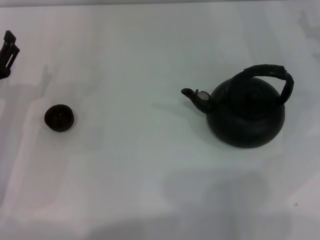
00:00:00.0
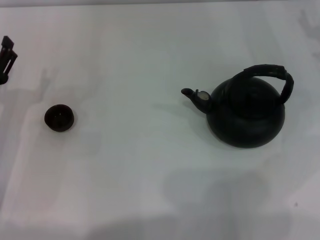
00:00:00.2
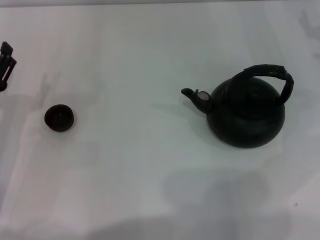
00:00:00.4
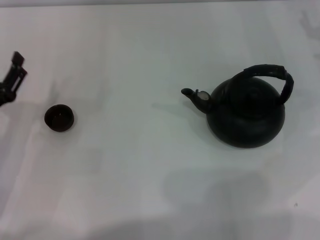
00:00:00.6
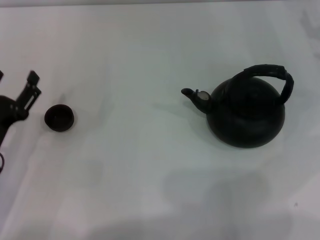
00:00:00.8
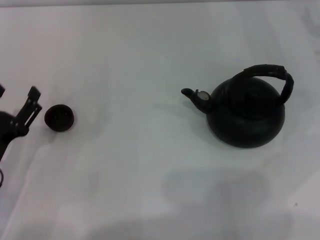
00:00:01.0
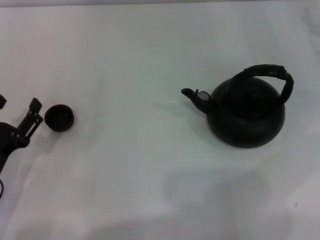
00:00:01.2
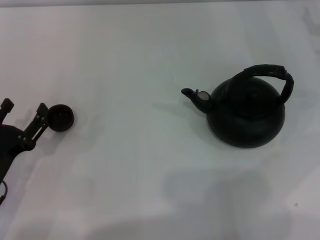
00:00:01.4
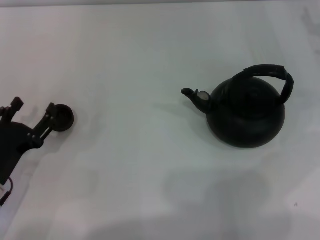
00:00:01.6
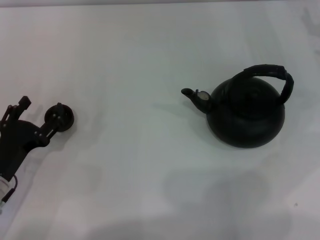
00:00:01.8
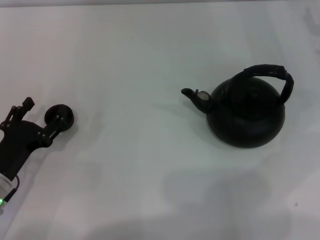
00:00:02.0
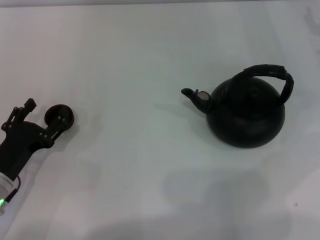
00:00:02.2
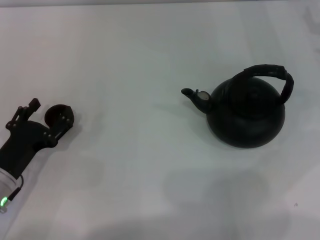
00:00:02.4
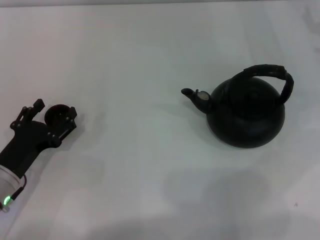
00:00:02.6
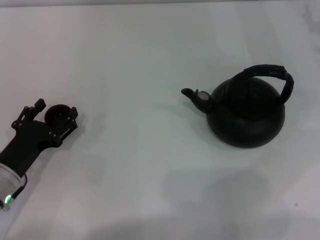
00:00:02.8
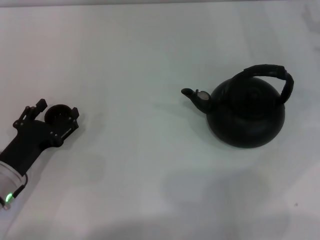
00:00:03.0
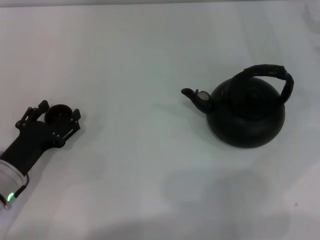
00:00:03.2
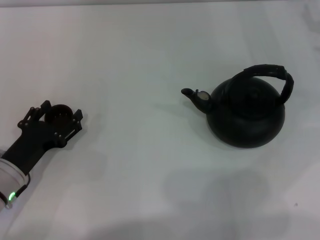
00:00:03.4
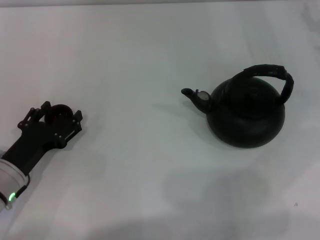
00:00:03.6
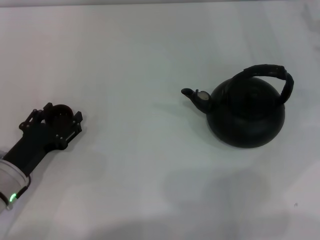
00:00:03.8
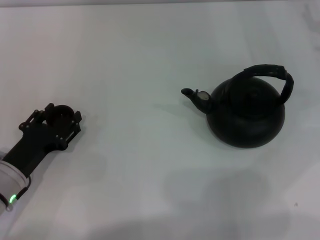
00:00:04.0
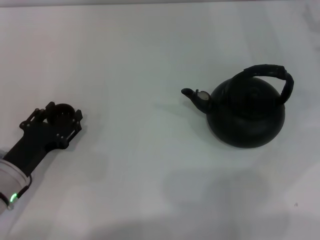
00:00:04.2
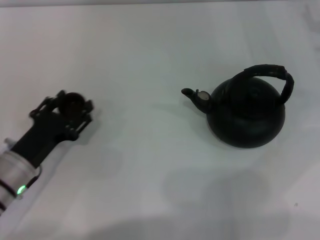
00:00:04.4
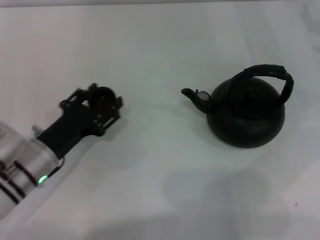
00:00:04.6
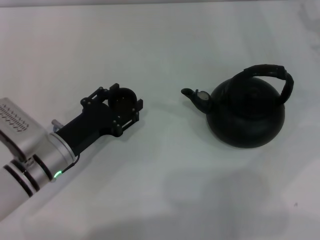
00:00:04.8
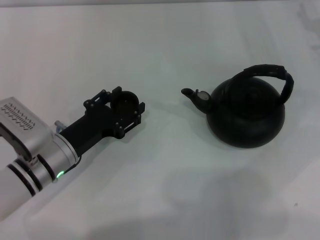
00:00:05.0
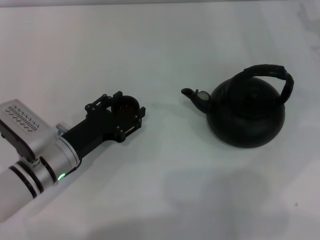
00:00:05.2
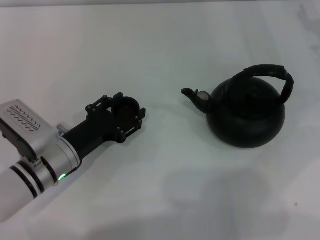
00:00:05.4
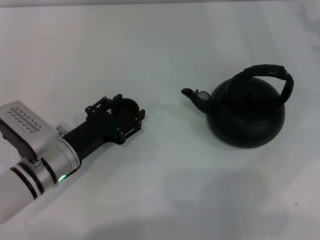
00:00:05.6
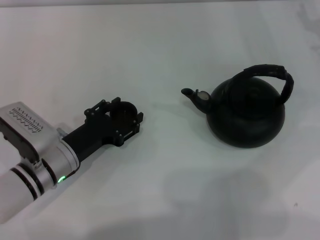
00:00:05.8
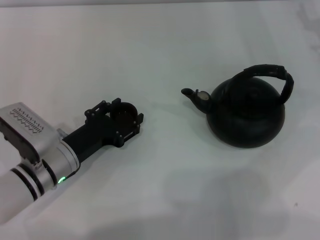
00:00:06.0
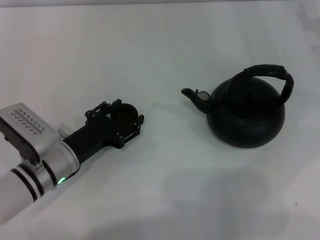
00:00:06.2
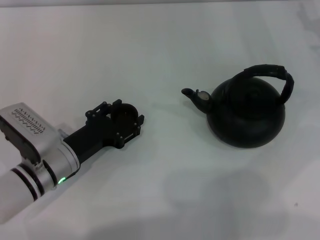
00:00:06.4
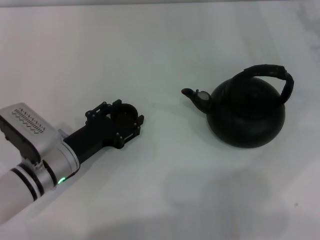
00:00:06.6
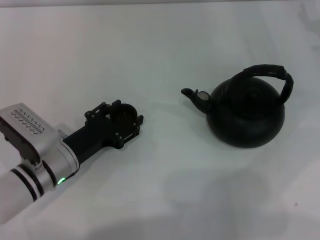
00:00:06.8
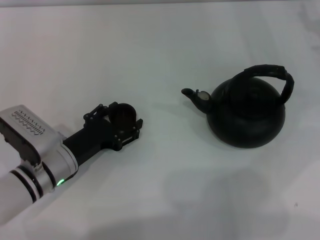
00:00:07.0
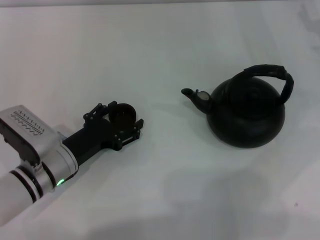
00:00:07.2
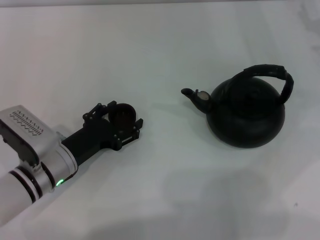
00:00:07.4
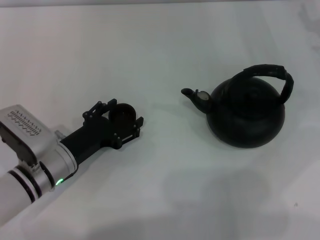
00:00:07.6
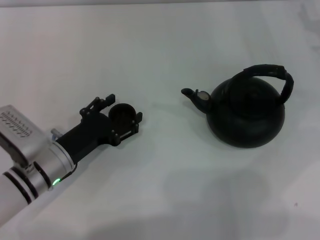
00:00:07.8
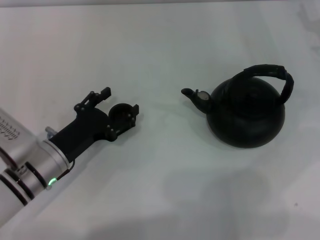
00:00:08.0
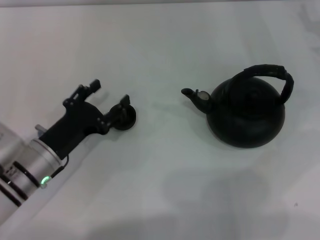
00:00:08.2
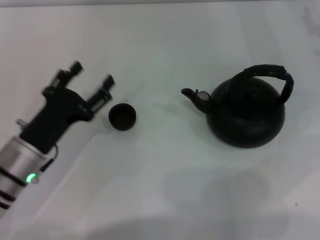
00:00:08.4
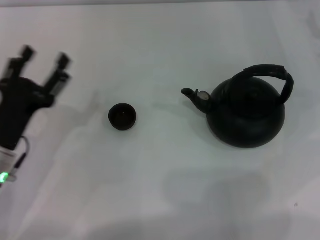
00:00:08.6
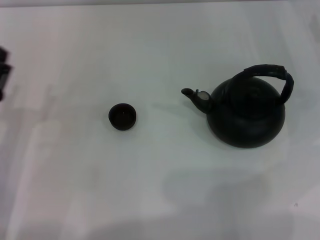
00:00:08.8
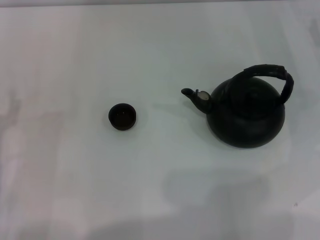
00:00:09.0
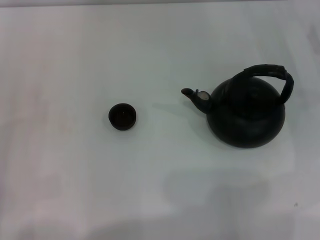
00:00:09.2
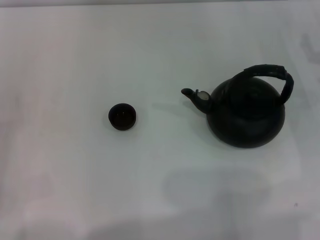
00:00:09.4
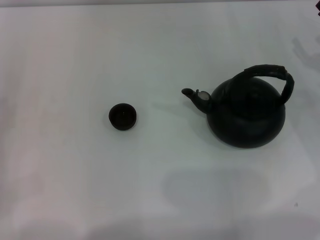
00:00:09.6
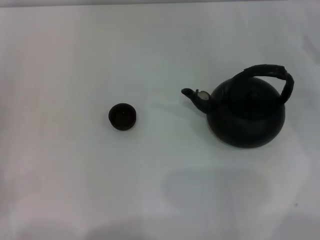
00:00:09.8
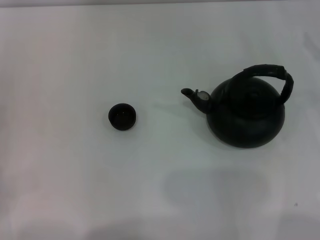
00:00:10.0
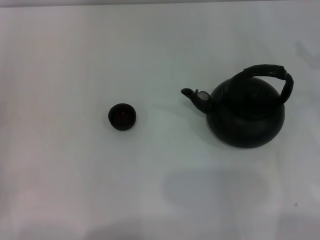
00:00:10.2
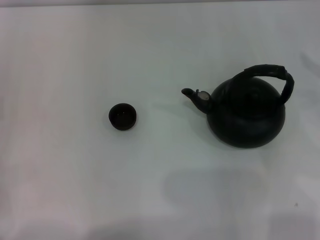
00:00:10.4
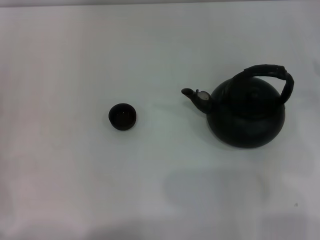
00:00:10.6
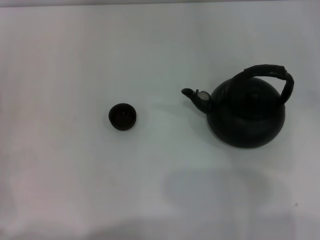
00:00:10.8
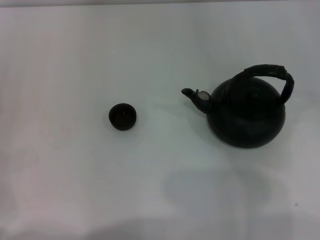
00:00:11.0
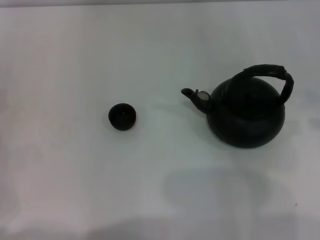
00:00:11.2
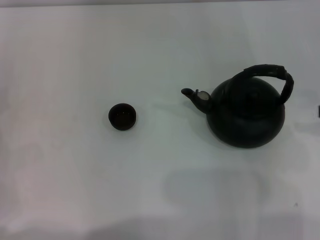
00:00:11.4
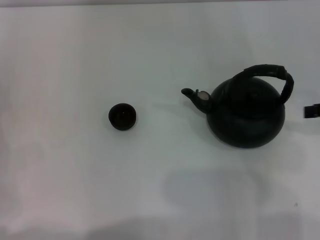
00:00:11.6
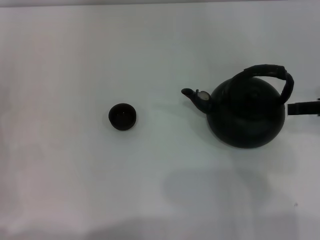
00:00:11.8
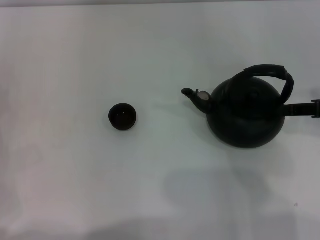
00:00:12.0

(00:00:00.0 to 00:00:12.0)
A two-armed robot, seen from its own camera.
Task of the whole recording: Grasp the handle of the teapot with one hand and pour tea into the teacup.
Step, 00:00:00.0 - 00:00:04.2: Pick up the teacup with the left gripper.
Step, 00:00:04.6 - 00:00:08.2: Place the teacup in the center of view with the left gripper.
00:00:00.0 - 00:00:01.6: The left gripper shifts about 10 cm backward.
00:00:01.6 - 00:00:03.0: The grippers stay close to where they were, moving slightly.
00:00:03.0 - 00:00:04.4: The left gripper closes up.
00:00:04.4 - 00:00:06.0: The left gripper is displaced to the right by some 5 cm.
00:00:06.0 - 00:00:07.6: The left gripper opens up.
00:00:07.6 - 00:00:09.0: The left gripper heads to the left, covering about 10 cm.
00:00:10.4 - 00:00:12.0: The right gripper heads to the left, covering approximately 5 cm, and travels upward and back again, some 5 cm each way.

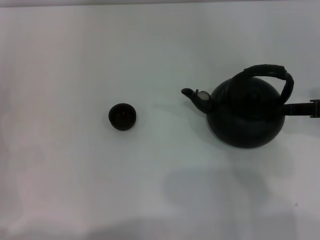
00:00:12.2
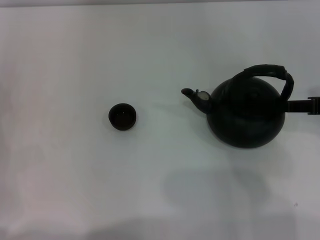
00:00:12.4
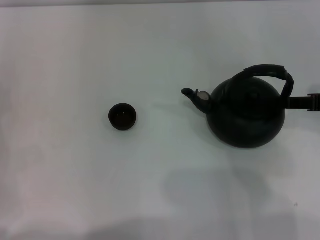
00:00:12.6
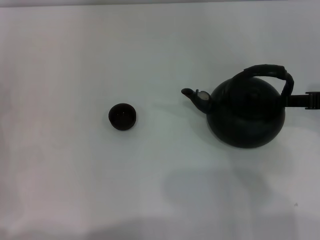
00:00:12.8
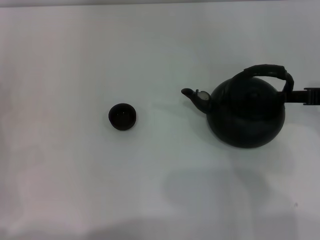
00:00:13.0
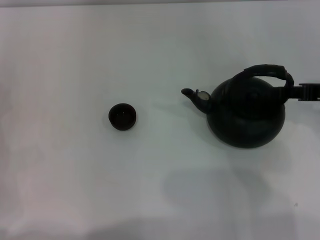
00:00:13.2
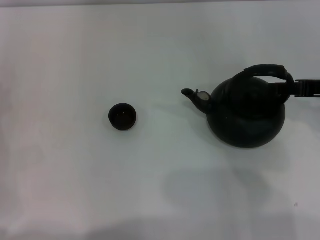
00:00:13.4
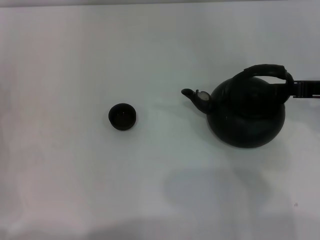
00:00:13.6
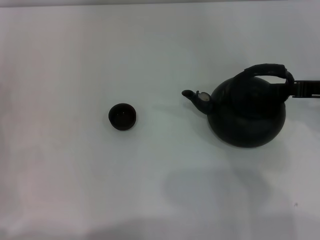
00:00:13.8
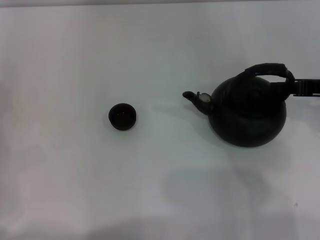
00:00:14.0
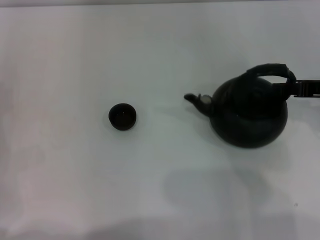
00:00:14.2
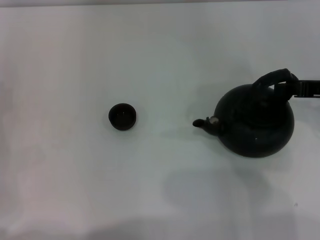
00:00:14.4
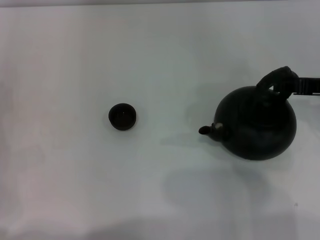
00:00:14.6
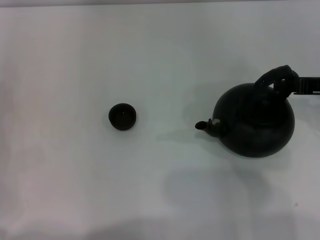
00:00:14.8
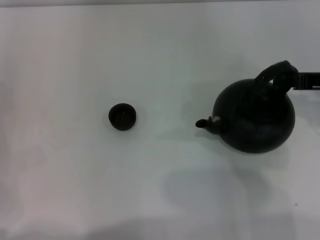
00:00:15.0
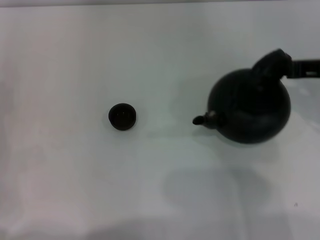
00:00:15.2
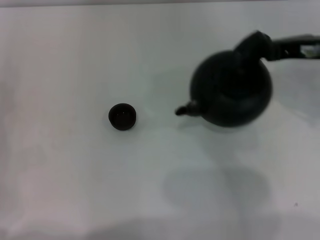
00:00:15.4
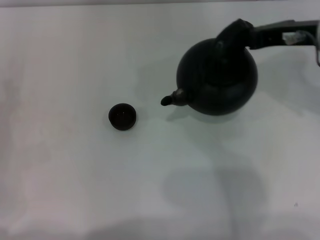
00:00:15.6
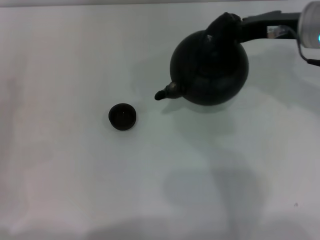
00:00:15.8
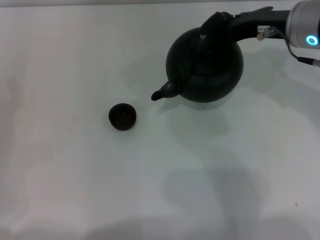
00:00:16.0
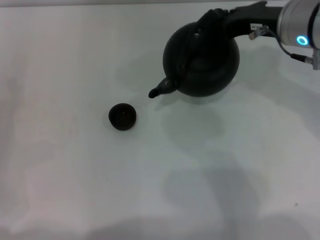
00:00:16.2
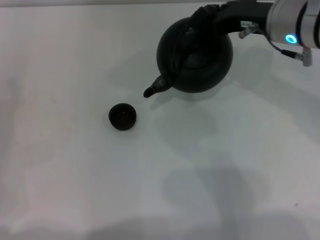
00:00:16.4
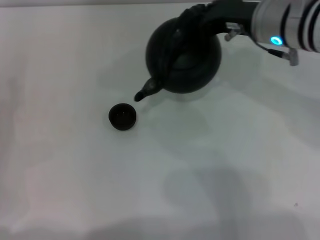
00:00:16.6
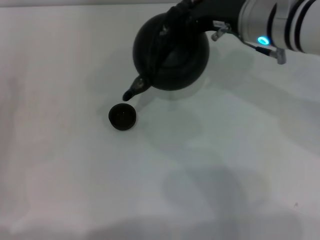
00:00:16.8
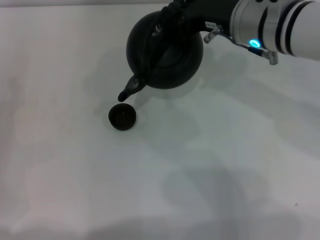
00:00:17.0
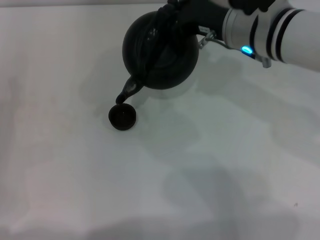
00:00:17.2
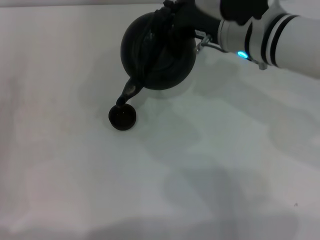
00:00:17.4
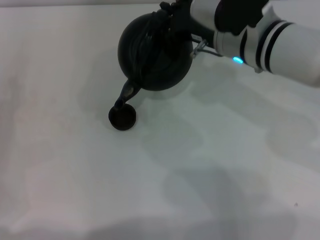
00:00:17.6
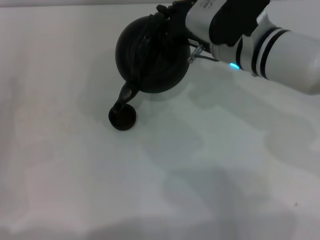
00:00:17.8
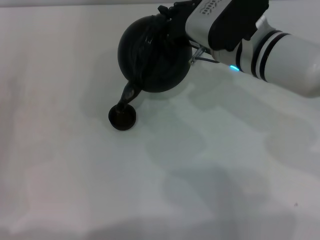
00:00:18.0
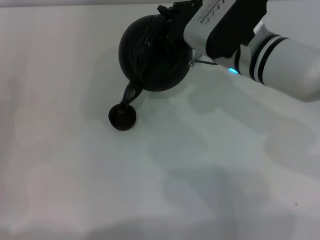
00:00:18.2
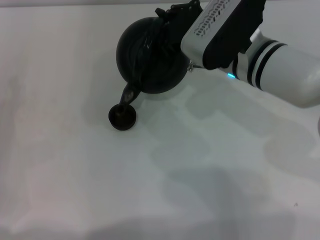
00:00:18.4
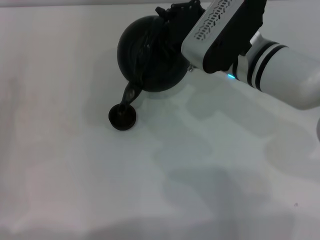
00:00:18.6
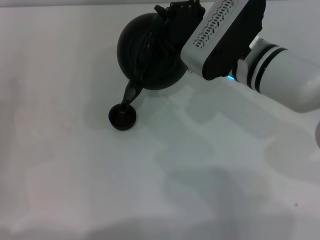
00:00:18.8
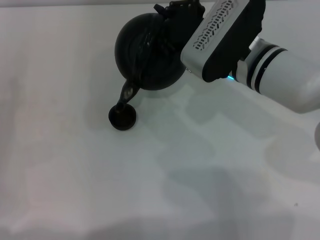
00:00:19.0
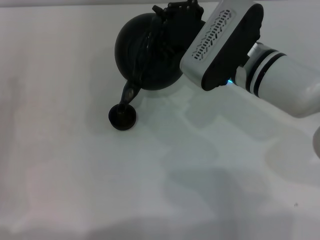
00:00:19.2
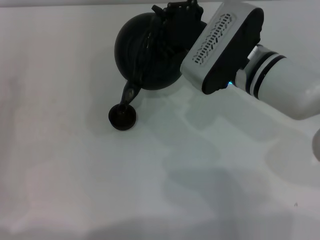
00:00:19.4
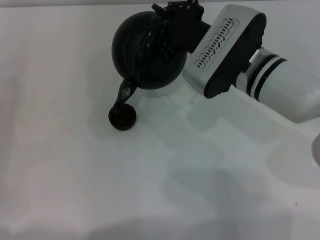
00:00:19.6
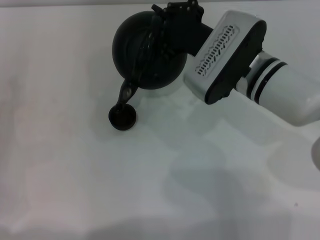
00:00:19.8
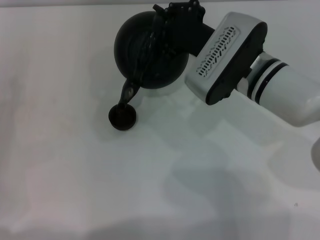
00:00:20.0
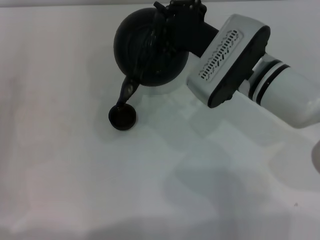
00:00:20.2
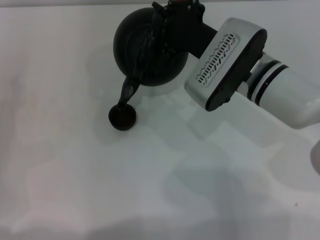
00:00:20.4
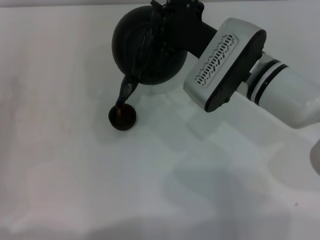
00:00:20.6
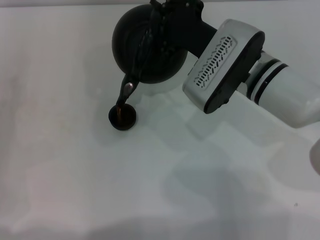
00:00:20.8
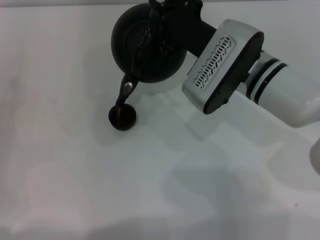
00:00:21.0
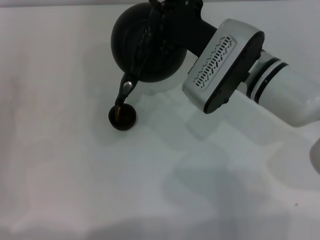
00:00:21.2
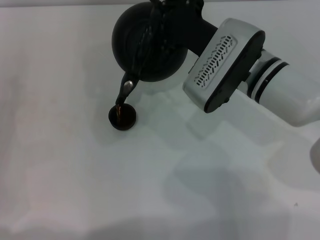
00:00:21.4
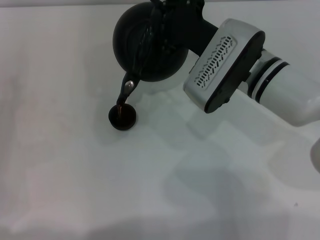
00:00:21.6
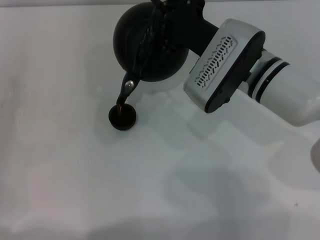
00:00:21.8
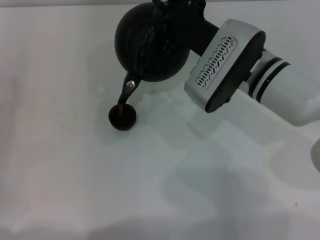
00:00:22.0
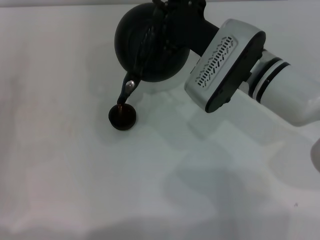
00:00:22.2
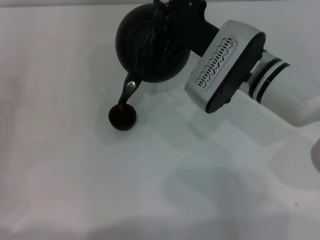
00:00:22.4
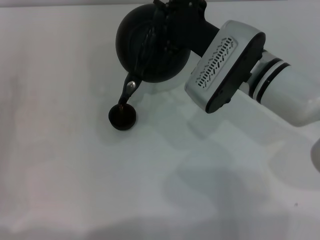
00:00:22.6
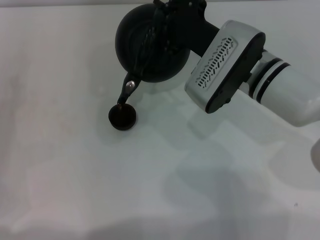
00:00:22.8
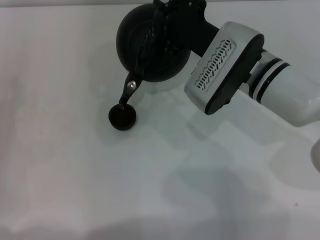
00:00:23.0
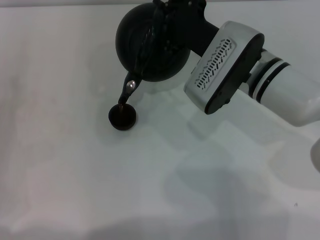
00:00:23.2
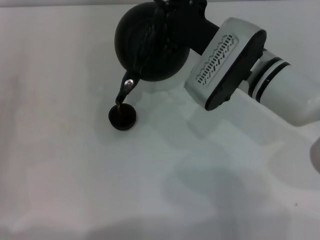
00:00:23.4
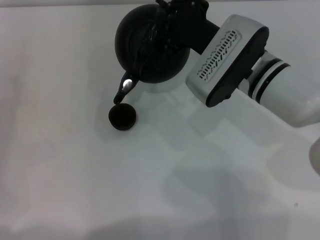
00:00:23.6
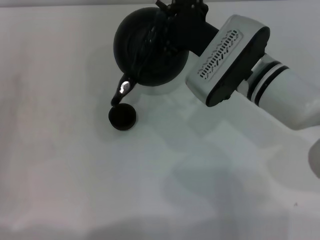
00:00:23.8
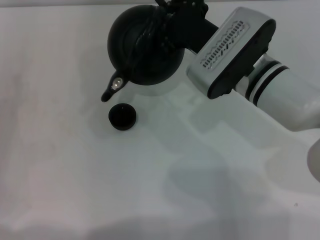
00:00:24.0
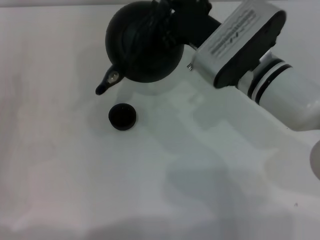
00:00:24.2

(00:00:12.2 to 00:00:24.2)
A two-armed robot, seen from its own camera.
Task of the whole recording: Grasp the handle of the teapot with one hand and pour tea into the teacup.
Step, 00:00:12.2 - 00:00:15.6: Pick up the teapot with the right gripper.
00:00:12.2 - 00:00:13.8: The grippers make only small movements.
00:00:13.8 - 00:00:15.2: The right gripper closes up.
00:00:15.2 - 00:00:16.6: The right gripper shifts some 15 cm to the left and forward.
00:00:16.6 - 00:00:18.2: The right gripper shifts by approximately 5 cm.
00:00:18.2 - 00:00:19.8: The grippers move only a little.
00:00:19.8 - 00:00:21.2: The grippers make only small movements.
00:00:21.2 - 00:00:22.6: Both grippers stay about where they are.
00:00:22.6 - 00:00:24.2: The grippers make only small movements.
